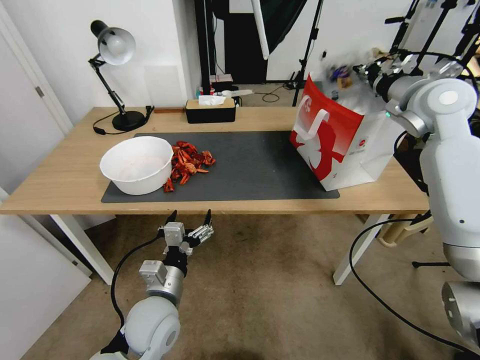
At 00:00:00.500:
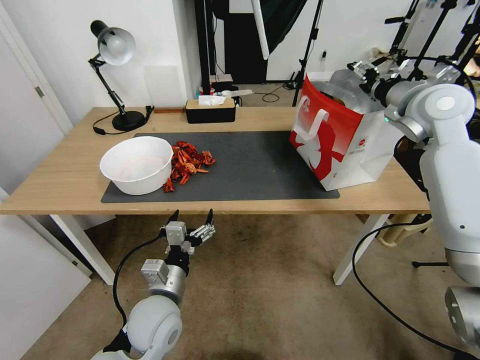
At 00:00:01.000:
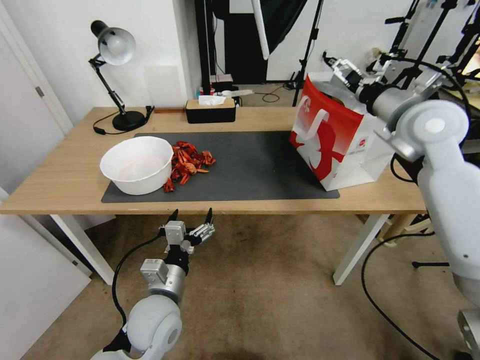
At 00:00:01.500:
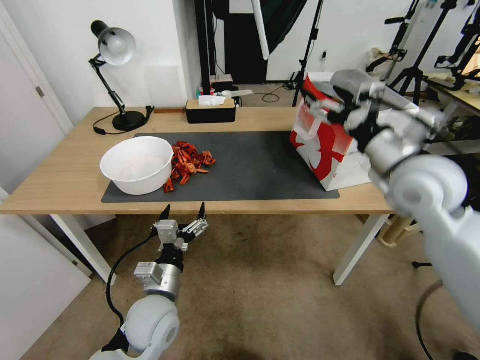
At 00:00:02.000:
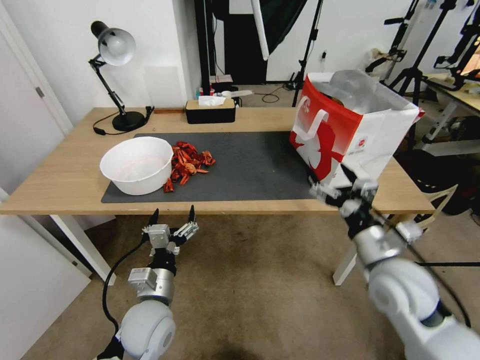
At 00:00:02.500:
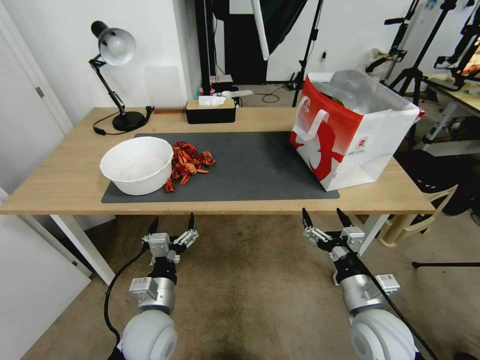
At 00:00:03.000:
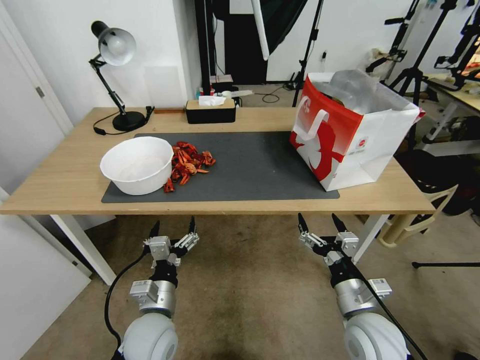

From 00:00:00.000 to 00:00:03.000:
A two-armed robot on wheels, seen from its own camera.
Task of the whole recording: Close the takeout container lid, then place the container into the takeout bag.
From 00:00:00.000 to 00:00:01.500: The right gripper shifts roughly 15 cm backward, downward and to the left, and opens.
From 00:00:01.500 to 00:00:03.000: The right gripper is displaced downward and backward by about 30 cm.
